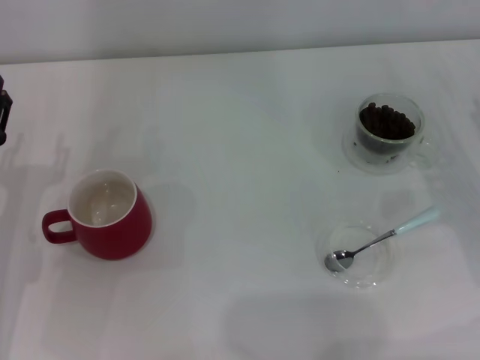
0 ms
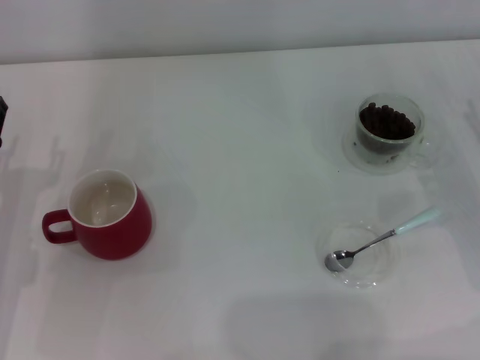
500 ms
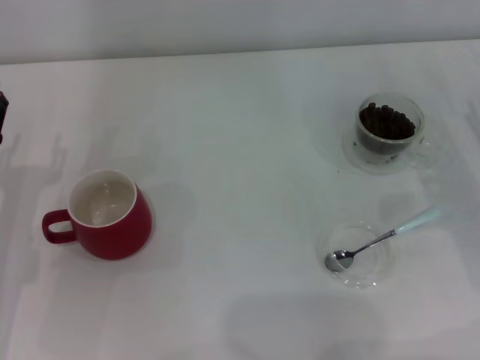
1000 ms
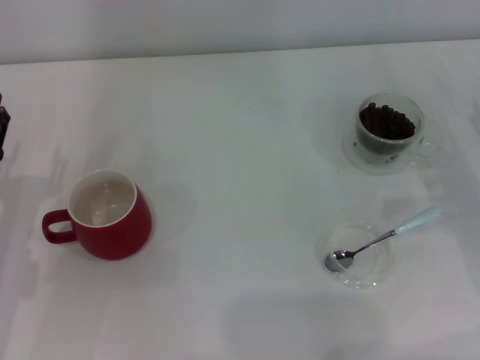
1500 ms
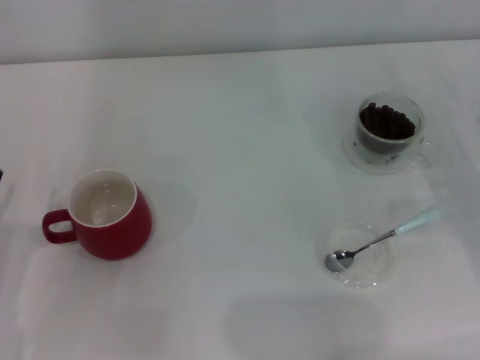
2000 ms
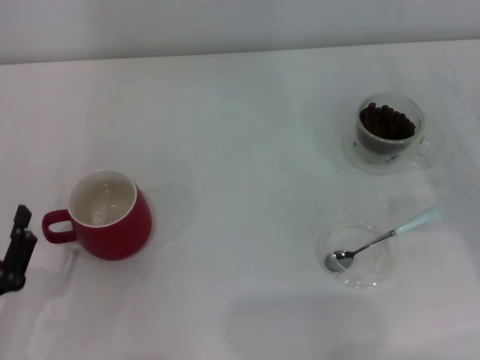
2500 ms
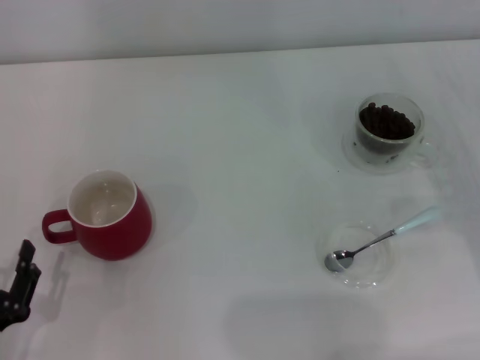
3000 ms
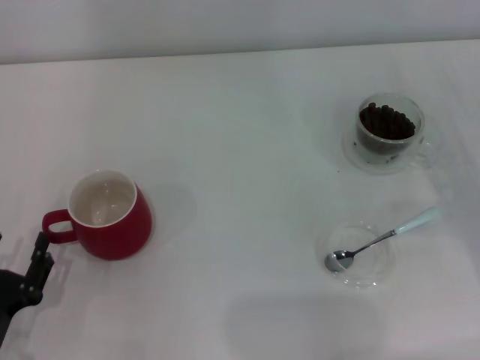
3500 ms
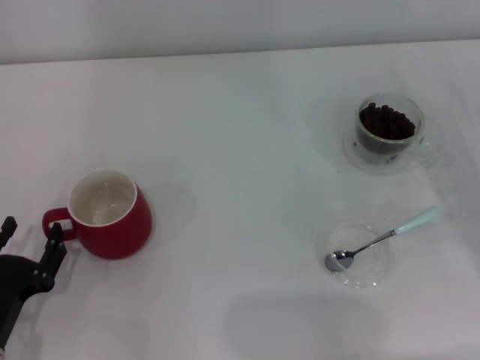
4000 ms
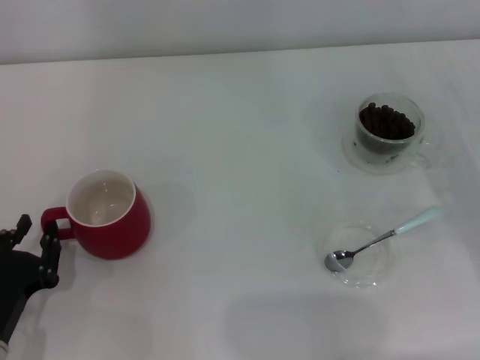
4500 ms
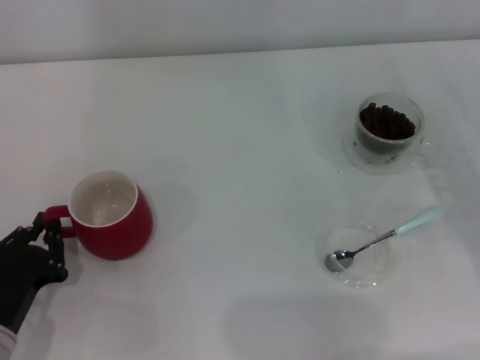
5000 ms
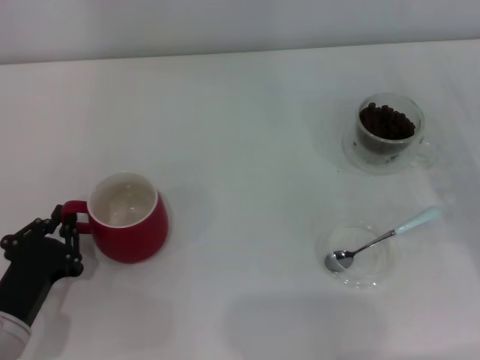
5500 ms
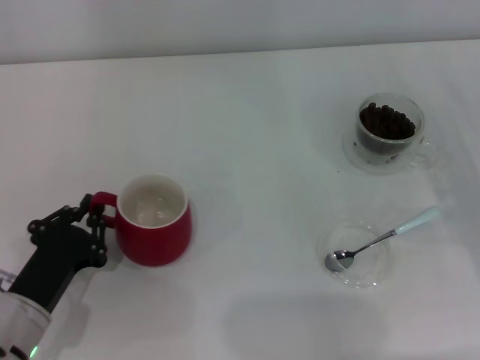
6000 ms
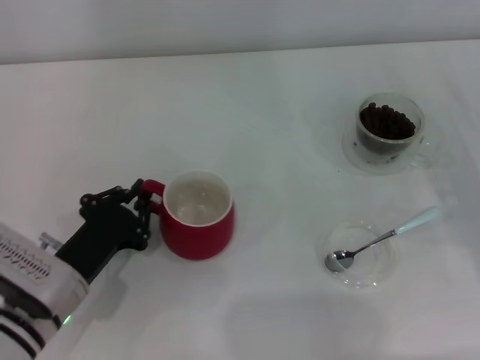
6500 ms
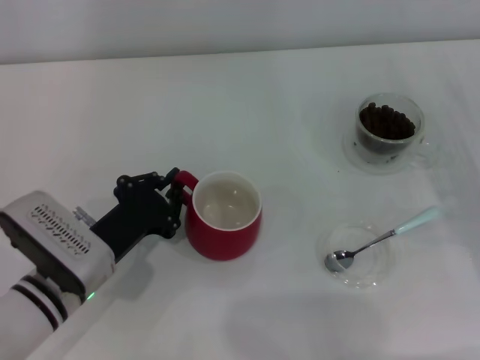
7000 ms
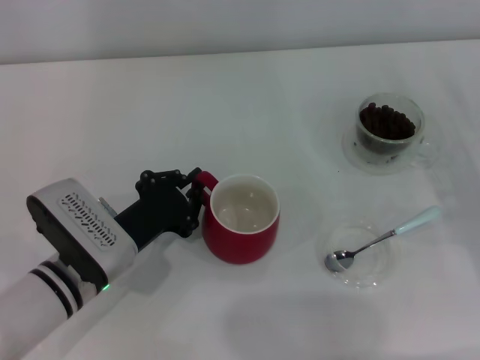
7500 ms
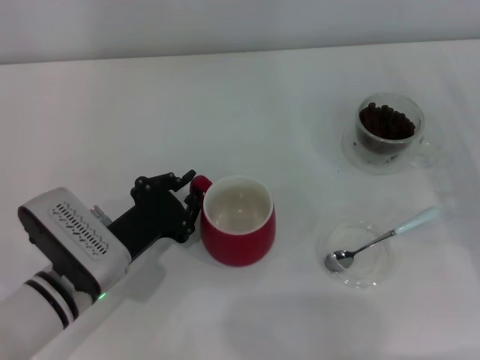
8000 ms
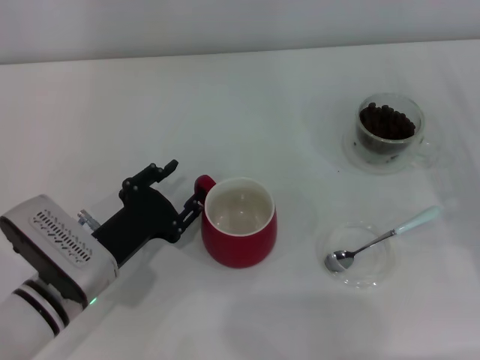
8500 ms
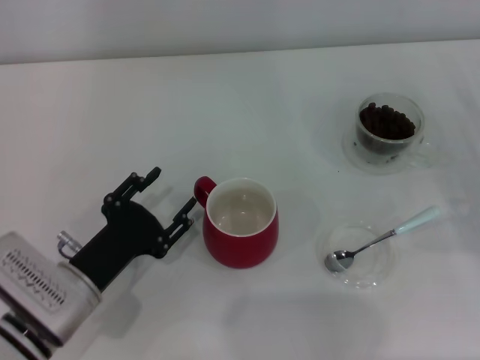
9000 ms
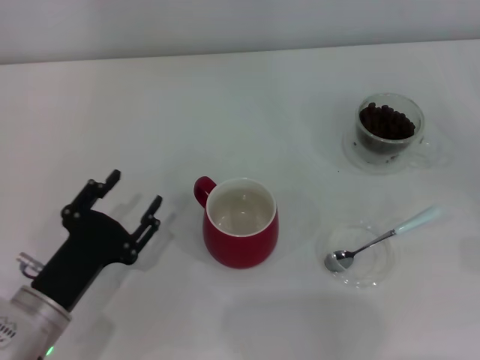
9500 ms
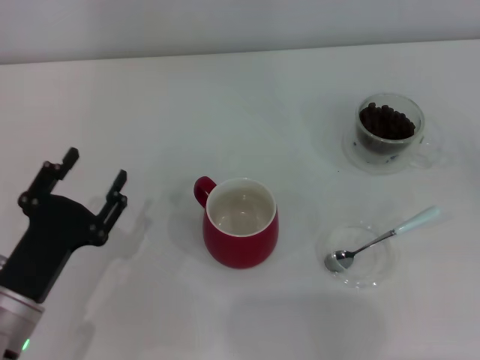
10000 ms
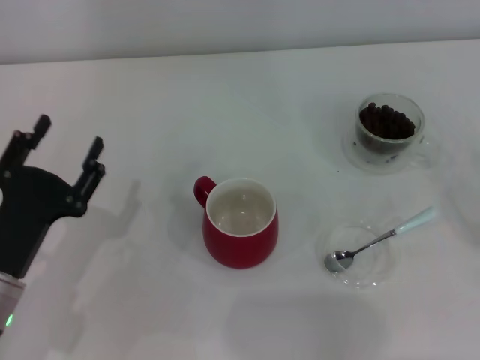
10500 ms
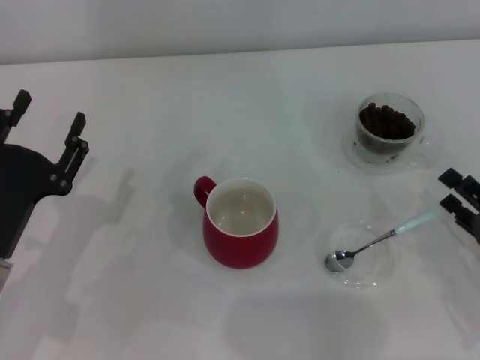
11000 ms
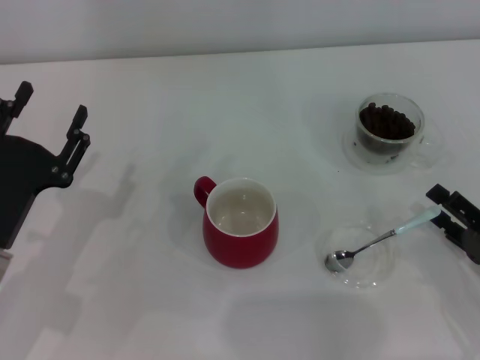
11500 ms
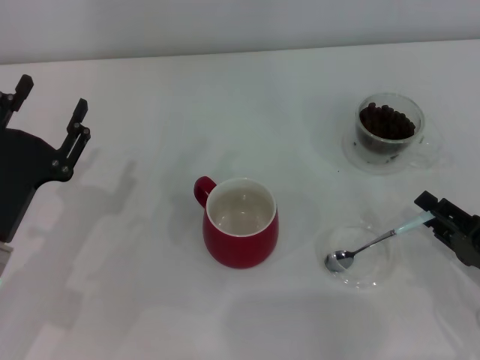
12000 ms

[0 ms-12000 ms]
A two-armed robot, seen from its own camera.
Task of the whole recording: Use a blue spoon to take out the coffee beans from the glass and pour them into the red cup.
Step, 0 ms to 9000 ms: Move the cup to the center of view with the left gripper.
2000 ms to 4000 ms: The left gripper moves some 5 cm.
4000 ms to 6000 ms: The left gripper ends up about 5 cm from where it was, and closes its fingers.
6000 ms to 8000 ms: The left gripper moves to the right and forward, some 10 cm.
8000 ms to 10000 ms: The left gripper is displaced backward and to the left by roughly 10 cm, and opens; the right gripper shifts approximately 10 cm backward and to the right.
10000 ms to 12000 ms: The left gripper ends up about 5 cm from where it was. The right gripper goes roughly 10 cm to the left.

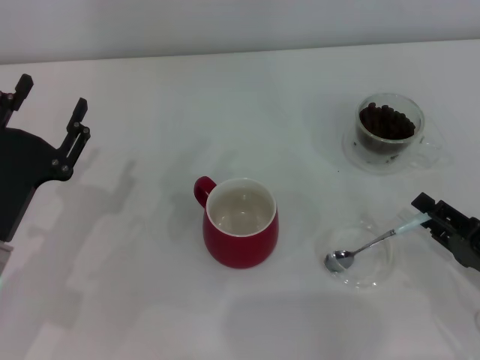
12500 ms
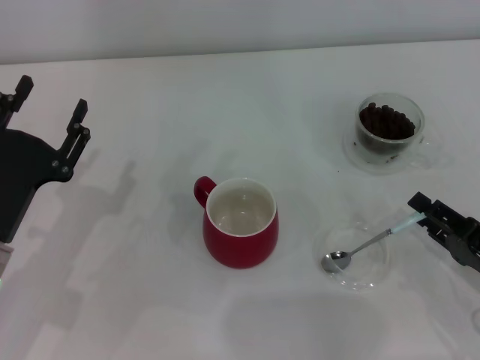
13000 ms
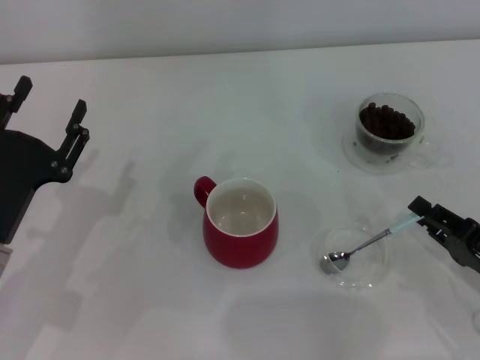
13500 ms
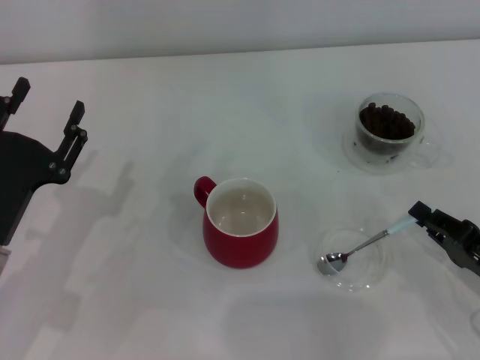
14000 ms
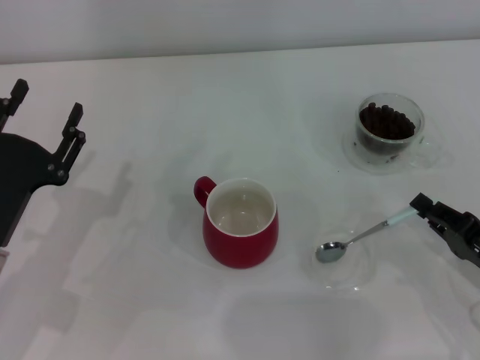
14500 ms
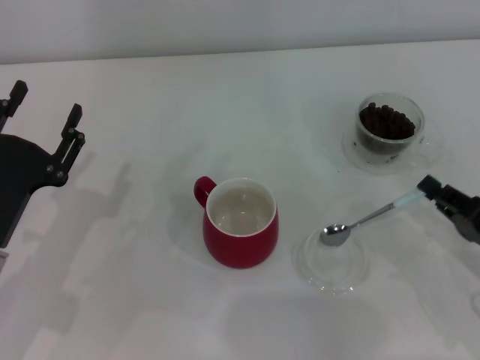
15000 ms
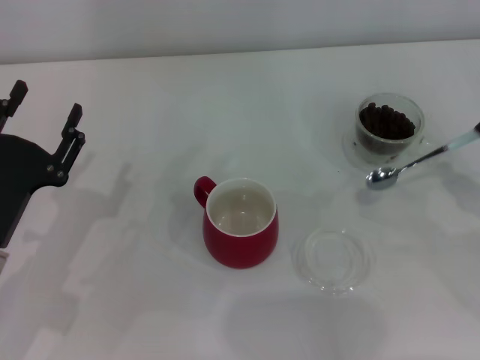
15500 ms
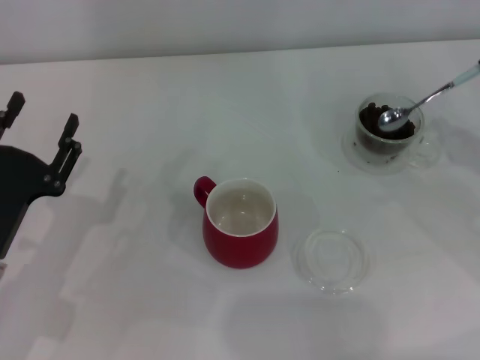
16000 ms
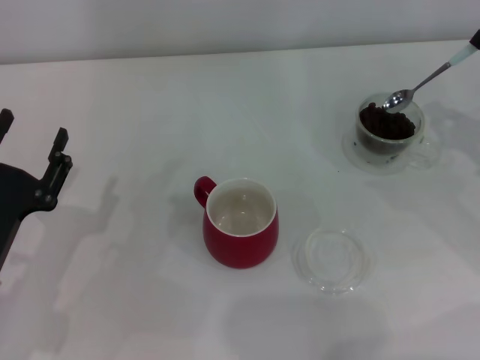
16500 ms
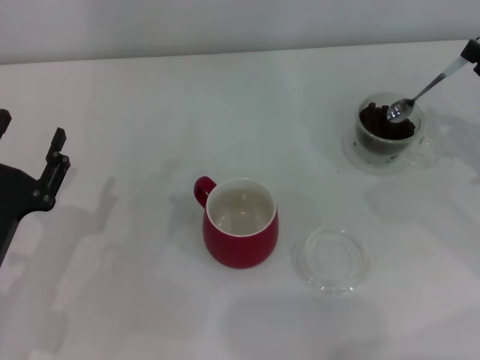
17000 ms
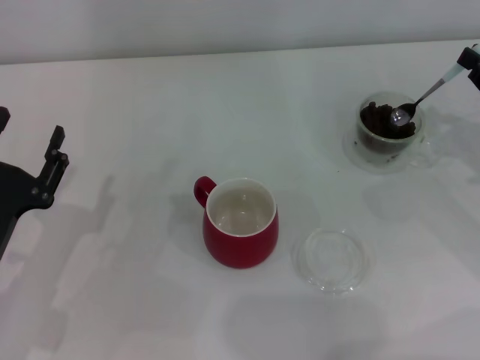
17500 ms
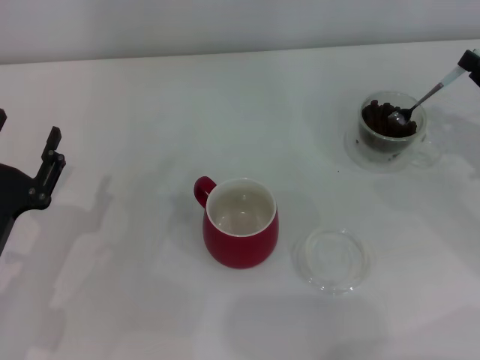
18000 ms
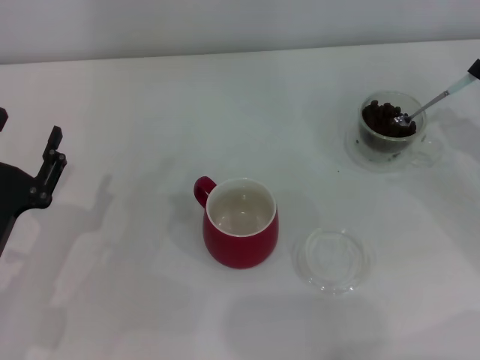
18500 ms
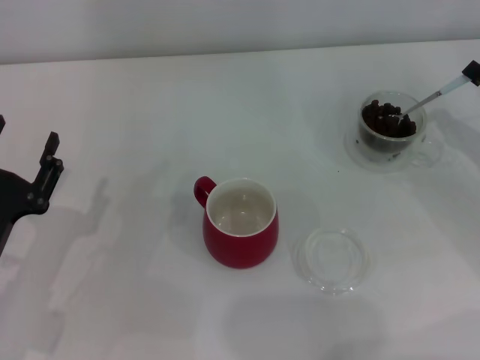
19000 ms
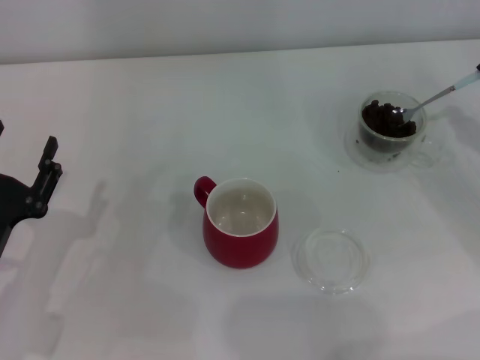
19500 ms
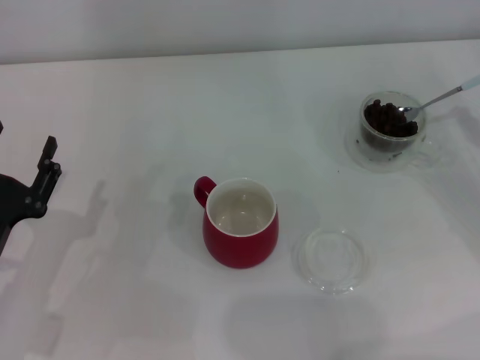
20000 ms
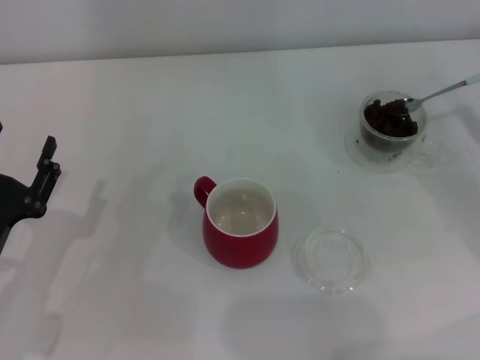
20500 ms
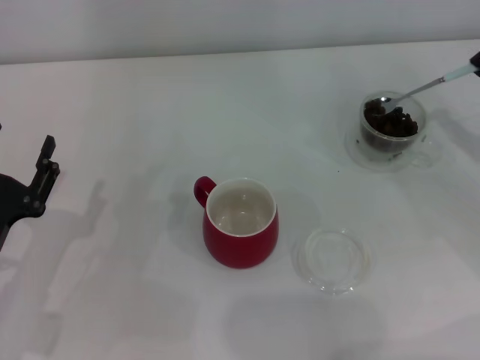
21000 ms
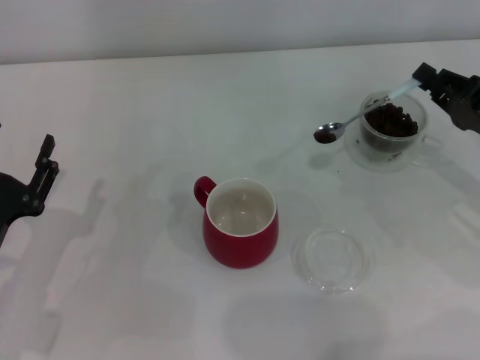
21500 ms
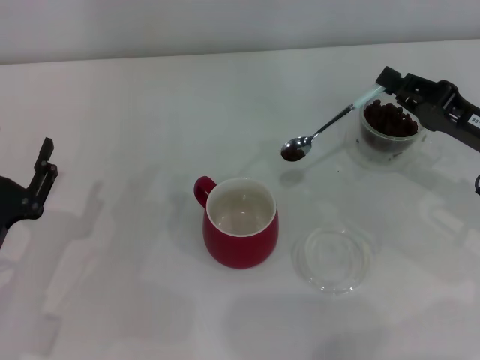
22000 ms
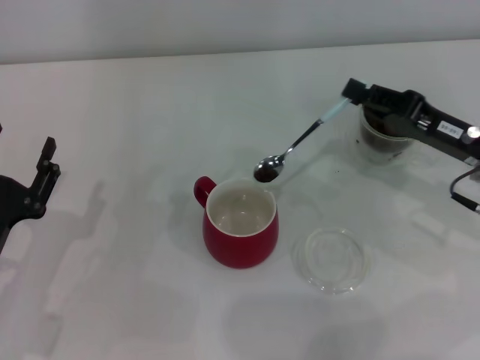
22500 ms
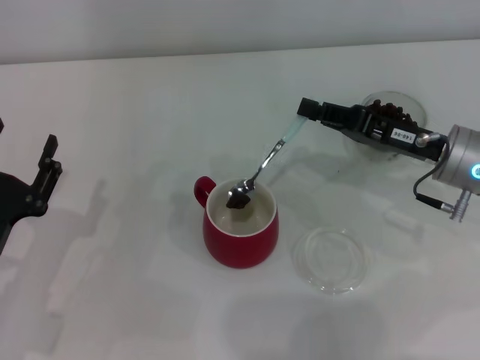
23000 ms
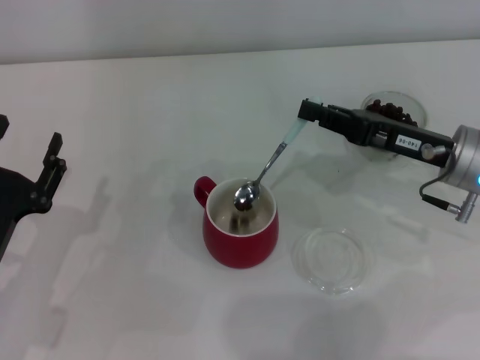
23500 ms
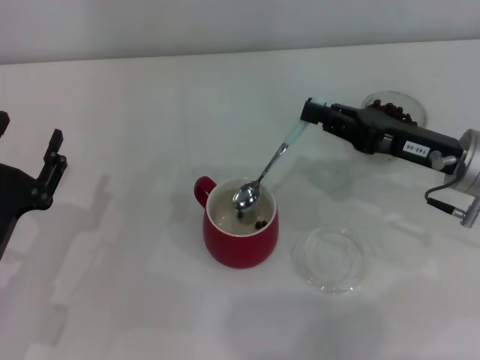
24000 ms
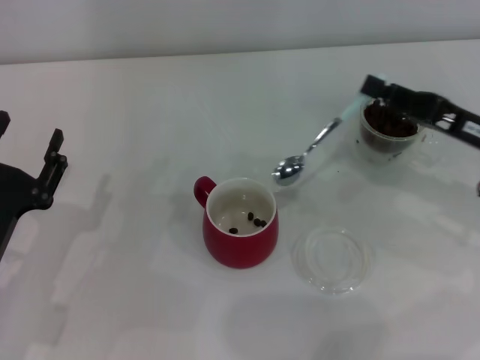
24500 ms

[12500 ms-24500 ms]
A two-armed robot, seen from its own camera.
Task of the whole recording: Use a blue spoon to take out the coffee beans from the glass and pour them into the red cup.
Step, 12500 ms to 15000 ms: Pick up the spoon with the right gripper.
Step, 15500 ms to 24000 ms: Scoop a spoonful of beans into the cup with the right gripper.
12500 ms to 14500 ms: The right gripper closes.
14500 ms to 16500 ms: The right gripper travels forward, upward and to the right by roughly 15 cm.
16500 ms to 18500 ms: The grippers make only small movements.
20500 ms to 22500 ms: The right gripper goes approximately 10 cm to the left.

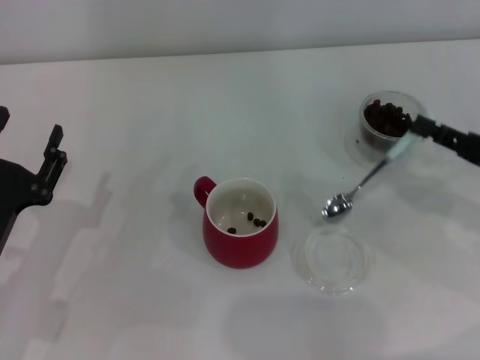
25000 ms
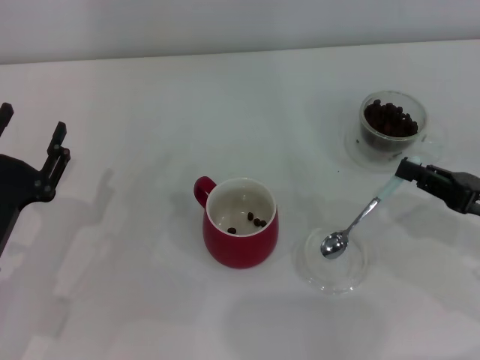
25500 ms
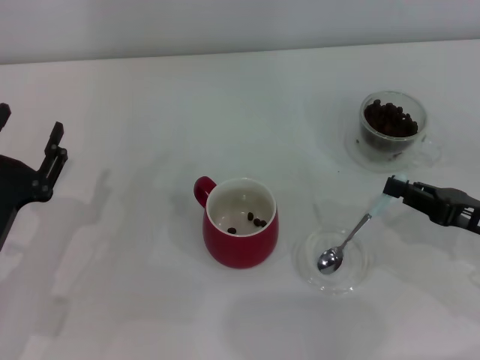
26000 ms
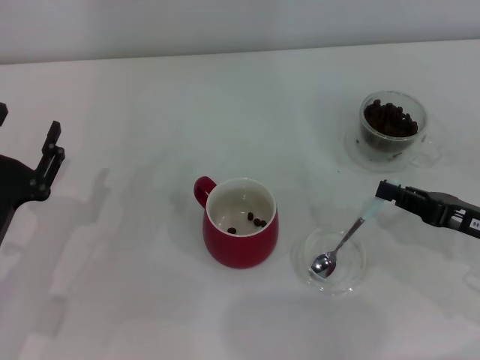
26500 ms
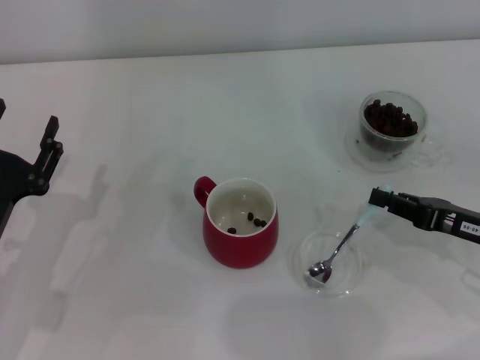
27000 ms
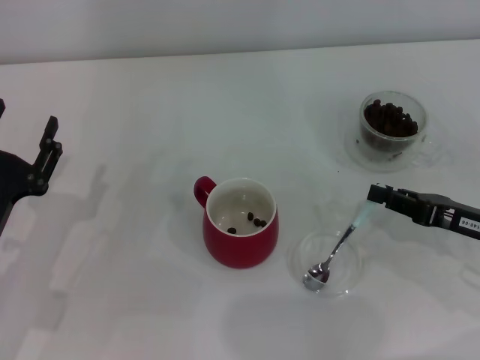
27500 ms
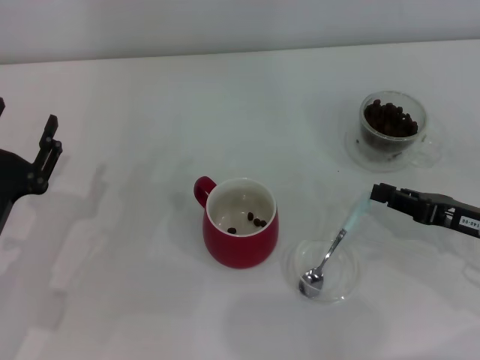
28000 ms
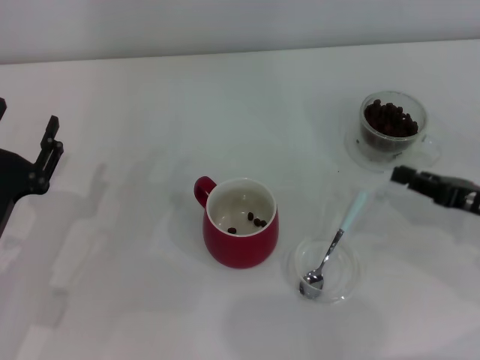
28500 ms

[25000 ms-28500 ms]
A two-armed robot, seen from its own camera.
Task of the whole recording: Use a blue spoon to take out the coffee beans from the glass and pour them into the red cup.
Step, 25000 ms to 28000 ms: Place the spoon back in its original place with the right gripper.
25000 ms to 27000 ms: The right gripper shifts by approximately 5 cm.
27000 ms to 28500 ms: The grippers stay close to where they were, moving slightly.
